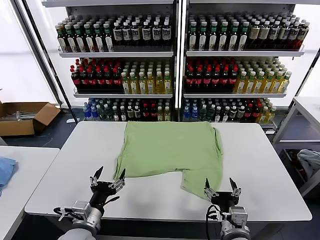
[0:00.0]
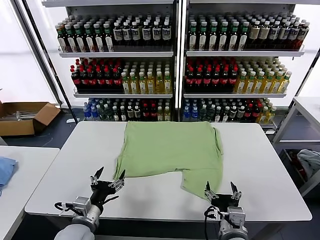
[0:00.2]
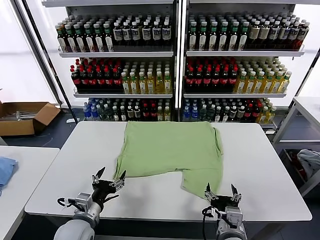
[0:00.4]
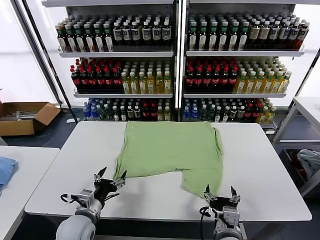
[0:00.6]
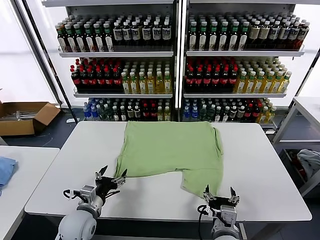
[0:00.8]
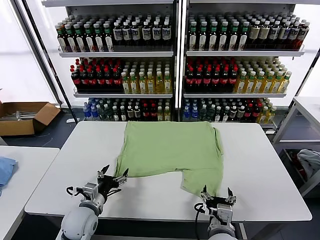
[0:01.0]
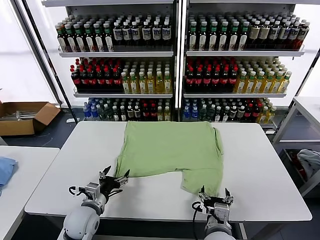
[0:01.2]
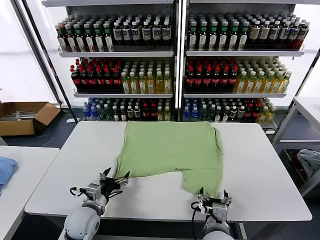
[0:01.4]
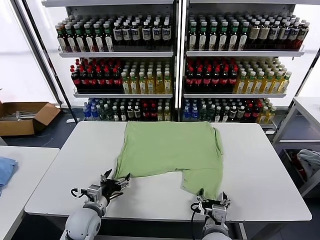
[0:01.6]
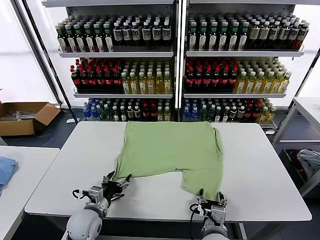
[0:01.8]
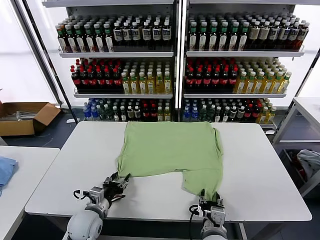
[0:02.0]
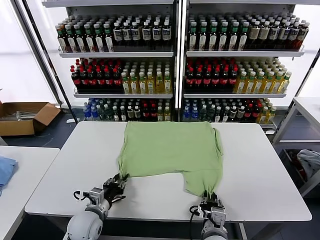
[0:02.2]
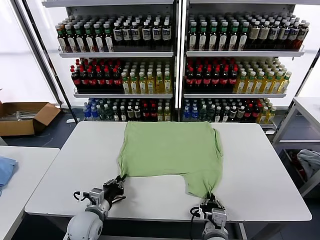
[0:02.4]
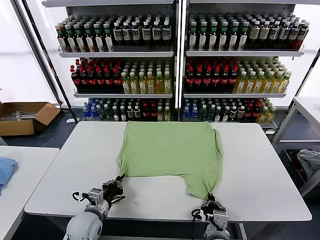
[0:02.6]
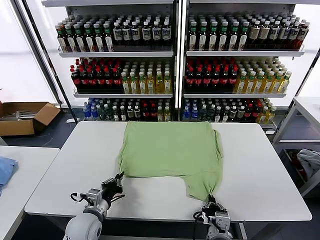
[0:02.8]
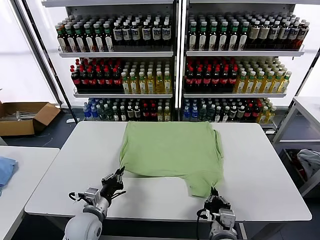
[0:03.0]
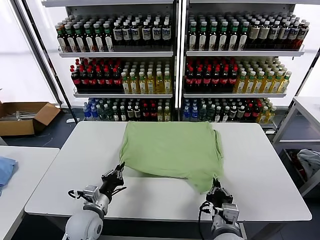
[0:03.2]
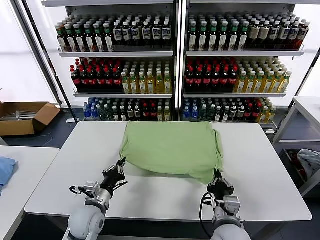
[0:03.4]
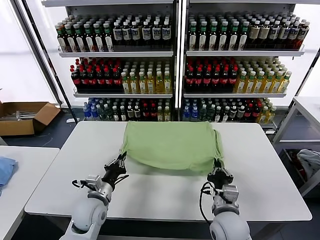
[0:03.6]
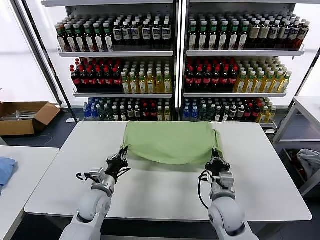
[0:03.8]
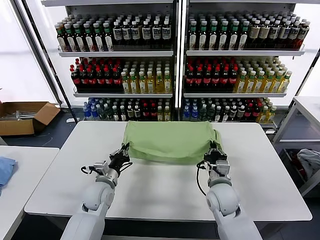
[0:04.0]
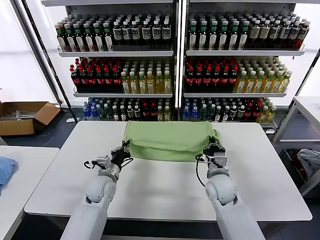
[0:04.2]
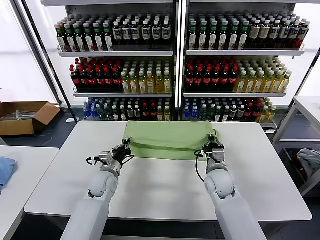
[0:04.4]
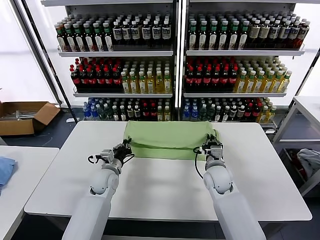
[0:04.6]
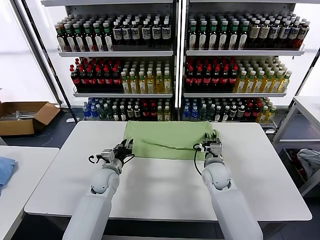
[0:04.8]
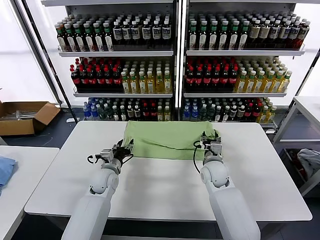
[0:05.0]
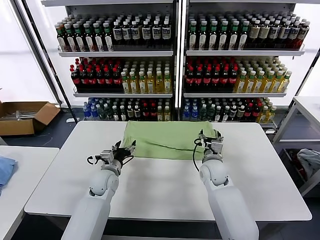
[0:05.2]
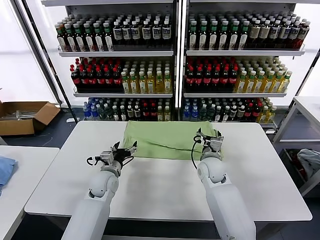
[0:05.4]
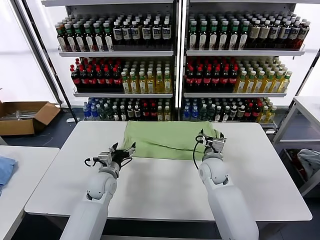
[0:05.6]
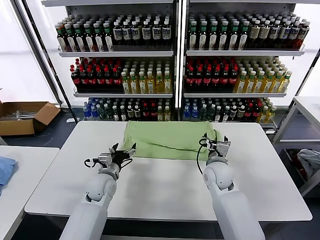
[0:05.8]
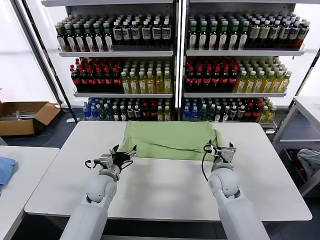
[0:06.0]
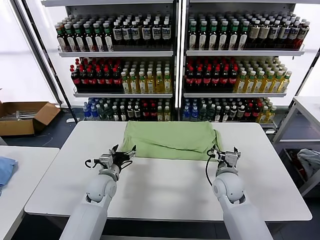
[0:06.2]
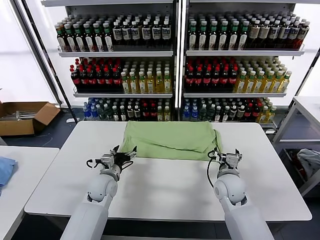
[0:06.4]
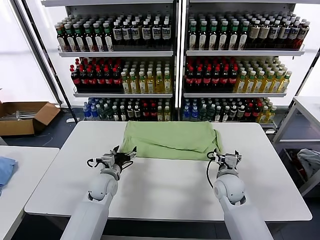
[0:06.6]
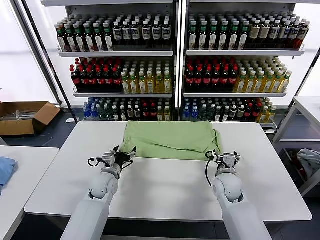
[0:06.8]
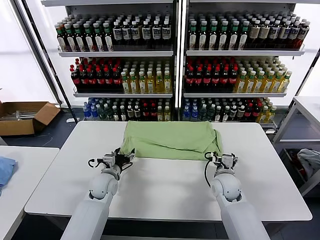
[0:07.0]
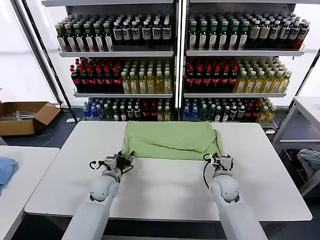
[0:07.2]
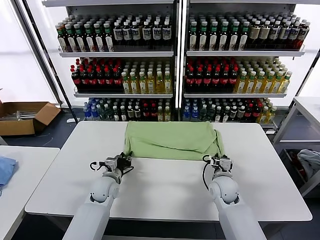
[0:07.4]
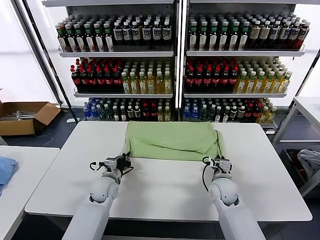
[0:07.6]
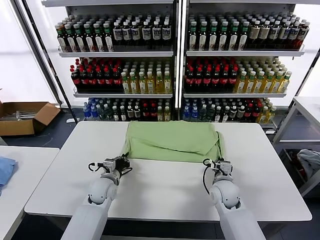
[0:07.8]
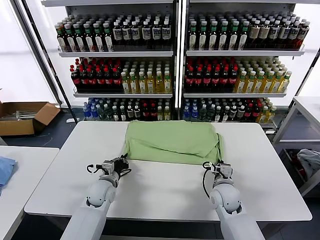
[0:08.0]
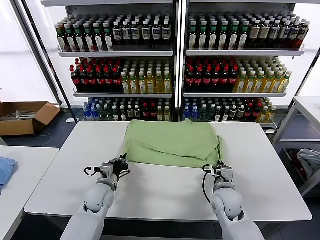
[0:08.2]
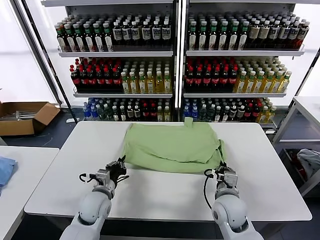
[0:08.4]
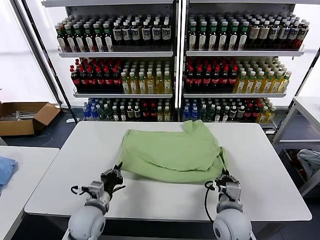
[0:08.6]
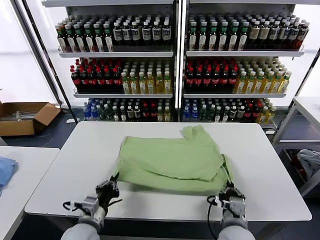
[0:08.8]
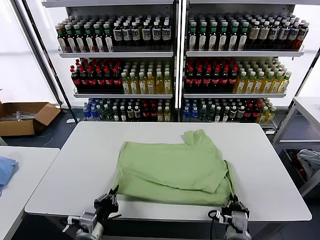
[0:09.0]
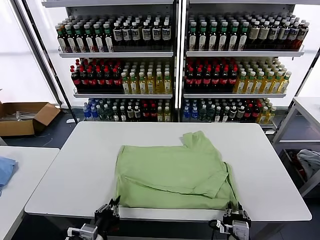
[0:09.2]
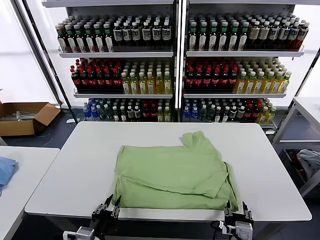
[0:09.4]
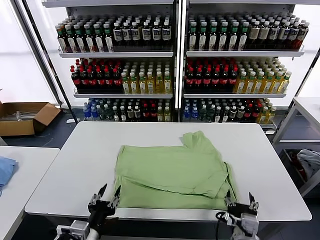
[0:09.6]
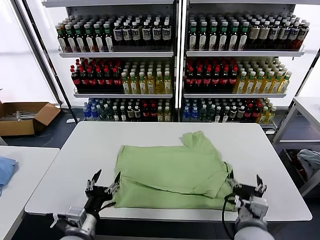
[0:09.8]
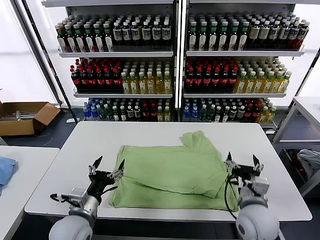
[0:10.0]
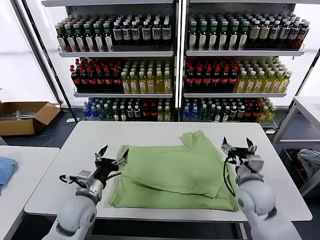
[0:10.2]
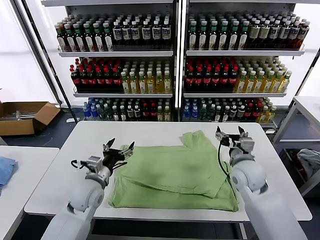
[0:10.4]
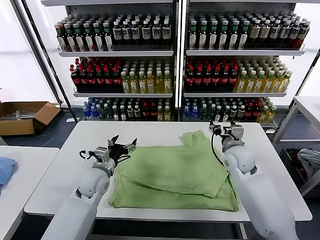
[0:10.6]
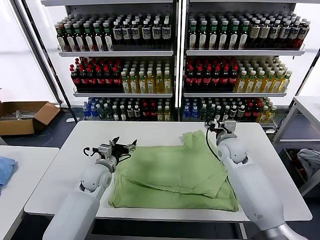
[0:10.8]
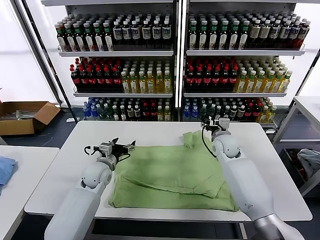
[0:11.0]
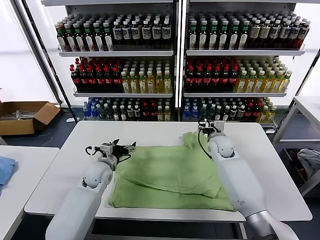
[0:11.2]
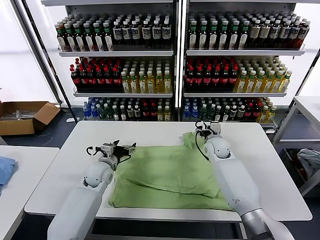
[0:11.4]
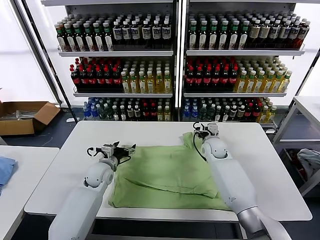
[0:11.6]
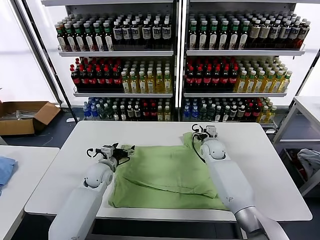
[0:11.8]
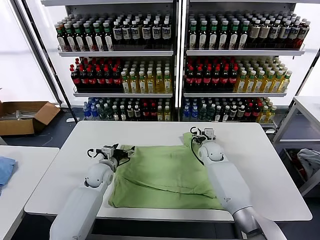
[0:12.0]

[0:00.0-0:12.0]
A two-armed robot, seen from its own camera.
Task of the whole recording: fold and organize the clothes.
Step, 0:00.0 to 0:02.6: use both grippers simultaneously to clamp the lower edge of the clothing fabric.
Step, 0:02.8 to 0:05.0: use both grippers to drag the lower edge of the fabric forward and fold it over the upper edge.
Step, 0:05.2 to 0:09.4: Drag the clothes downward with both gripper.
0:01.6 to 0:03.0: The right gripper closes its fingers; the left gripper closes up.
0:03.0 to 0:04.4: Both grippers travel together forward, about 20 cm.
0:04.4 to 0:06.0: The right gripper opens. The left gripper opens up.
0:06.0 to 0:07.6: The right gripper heads downward, covering some 5 cm, and closes up. The left gripper closes its fingers.
0:07.6 to 0:09.0: Both grippers travel together backward, roughly 20 cm.
0:09.0 to 0:10.4: The left gripper moves forward, approximately 15 cm, and opens; the right gripper goes about 25 cm forward, and opens up.
0:10.4 to 0:12.0: The left gripper moves forward and downward, some 10 cm; the right gripper heads forward, downward and to the left, covering approximately 20 cm.

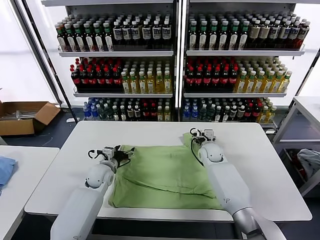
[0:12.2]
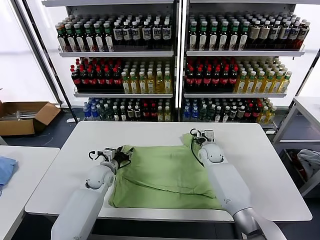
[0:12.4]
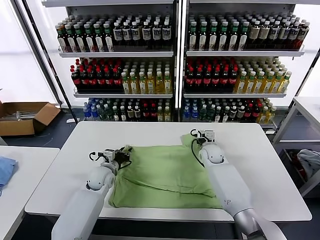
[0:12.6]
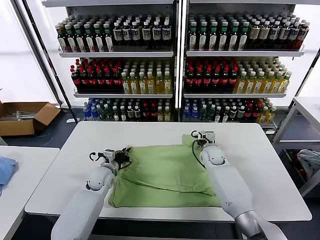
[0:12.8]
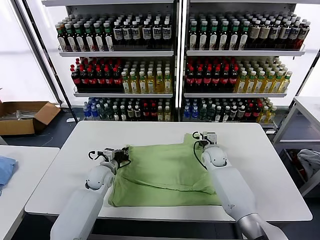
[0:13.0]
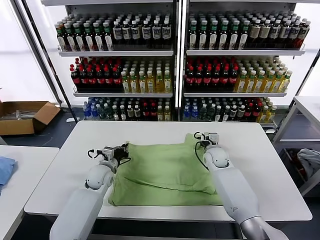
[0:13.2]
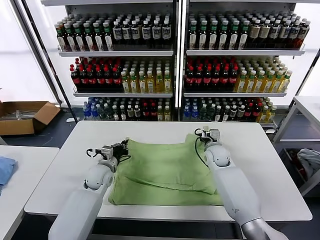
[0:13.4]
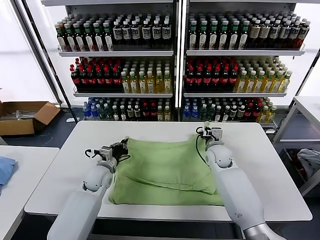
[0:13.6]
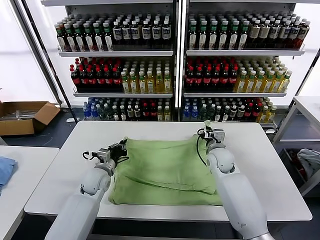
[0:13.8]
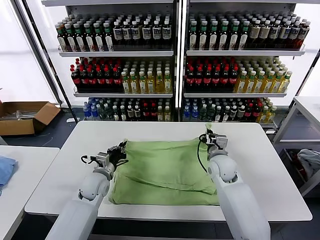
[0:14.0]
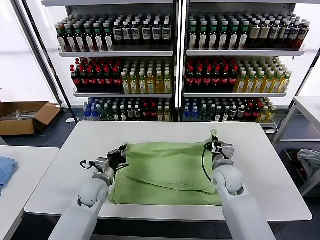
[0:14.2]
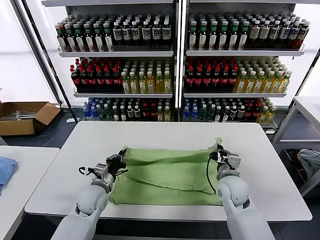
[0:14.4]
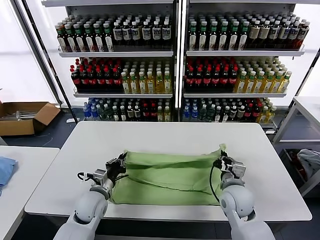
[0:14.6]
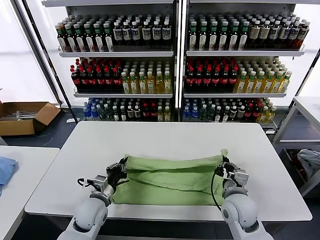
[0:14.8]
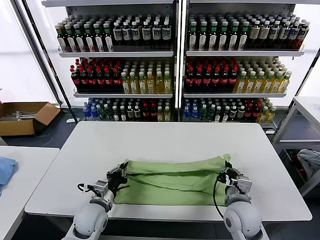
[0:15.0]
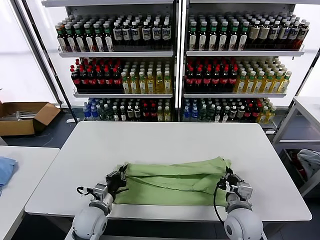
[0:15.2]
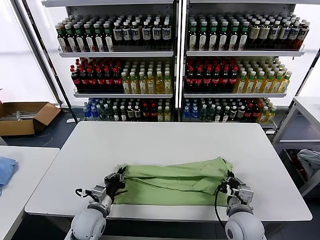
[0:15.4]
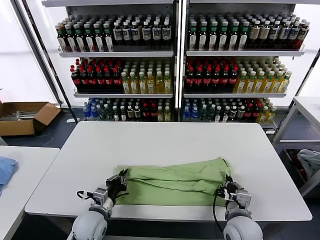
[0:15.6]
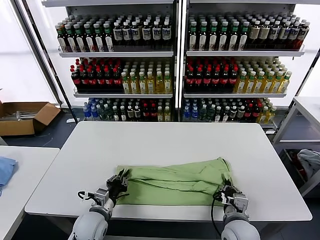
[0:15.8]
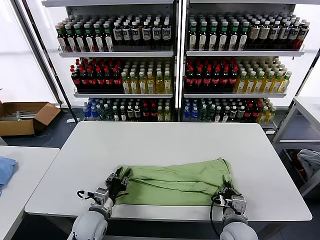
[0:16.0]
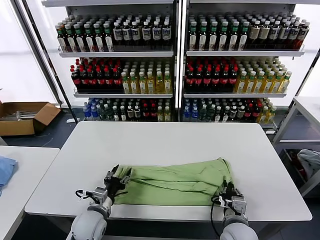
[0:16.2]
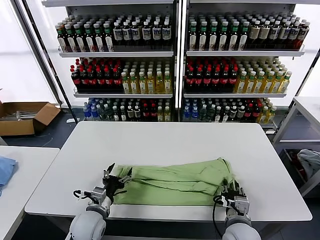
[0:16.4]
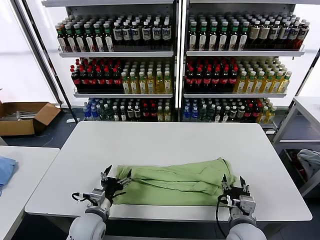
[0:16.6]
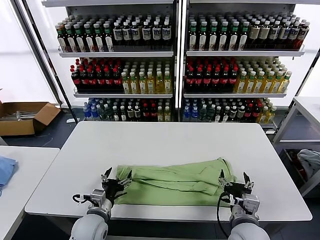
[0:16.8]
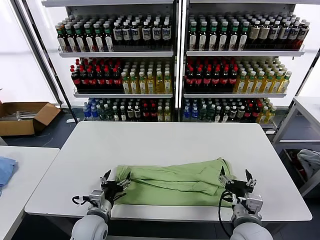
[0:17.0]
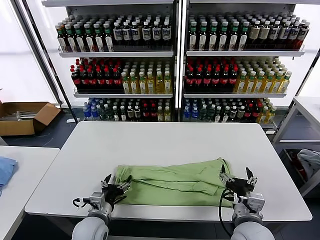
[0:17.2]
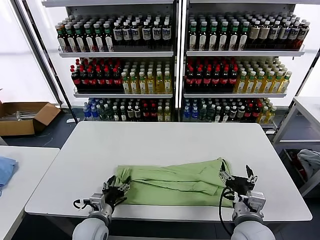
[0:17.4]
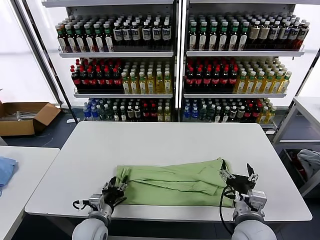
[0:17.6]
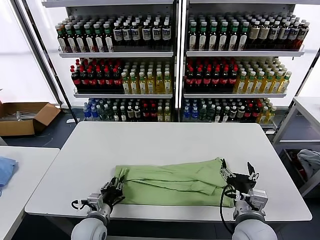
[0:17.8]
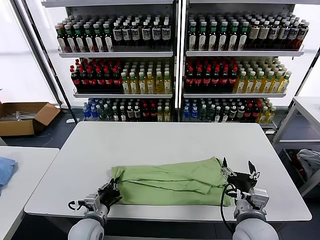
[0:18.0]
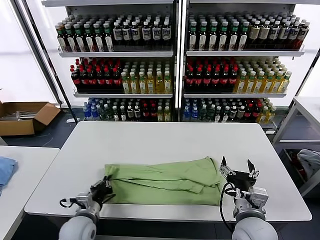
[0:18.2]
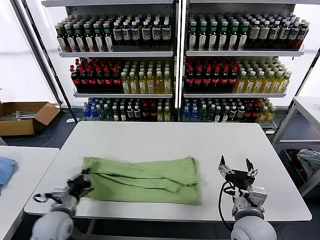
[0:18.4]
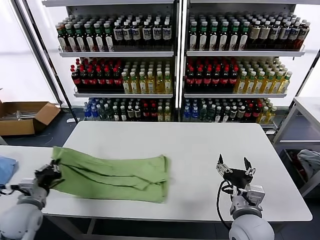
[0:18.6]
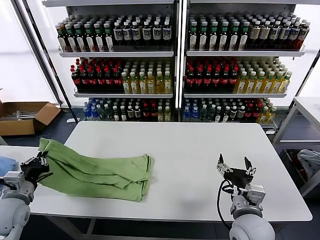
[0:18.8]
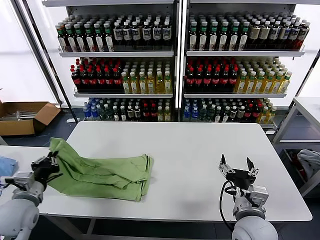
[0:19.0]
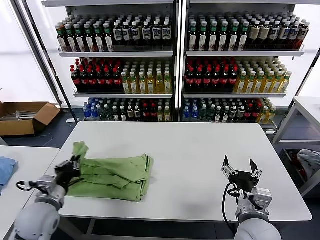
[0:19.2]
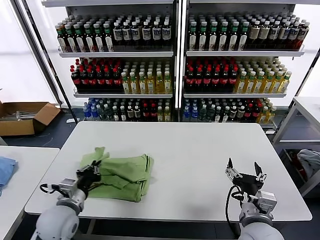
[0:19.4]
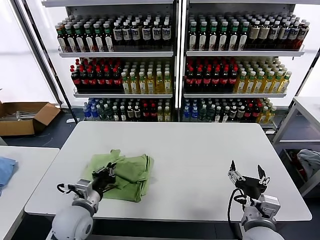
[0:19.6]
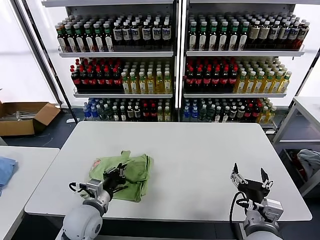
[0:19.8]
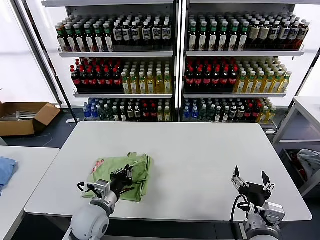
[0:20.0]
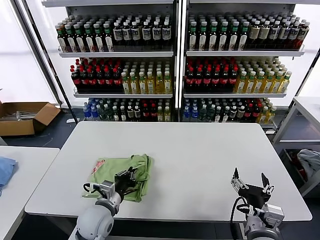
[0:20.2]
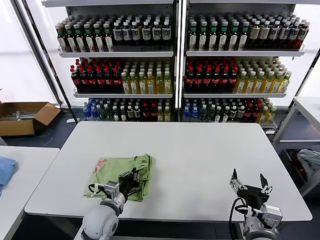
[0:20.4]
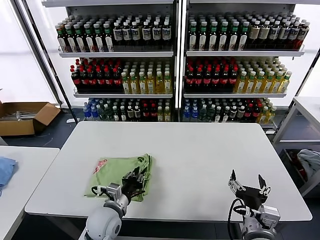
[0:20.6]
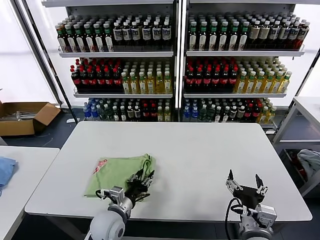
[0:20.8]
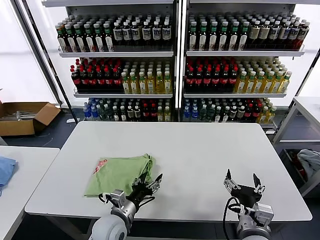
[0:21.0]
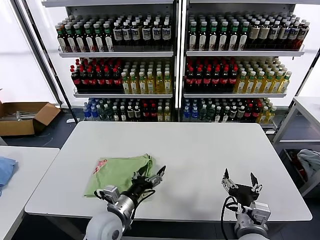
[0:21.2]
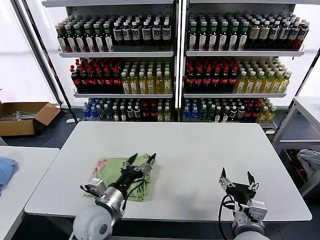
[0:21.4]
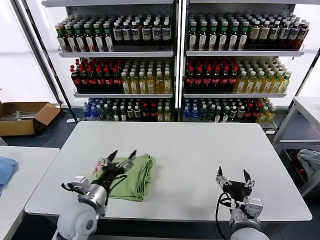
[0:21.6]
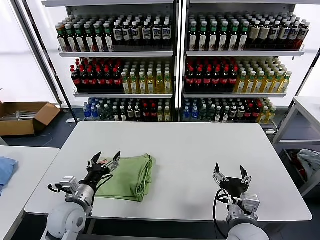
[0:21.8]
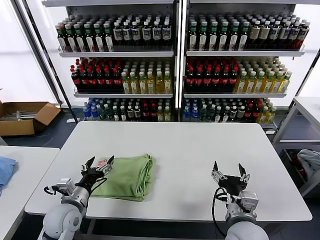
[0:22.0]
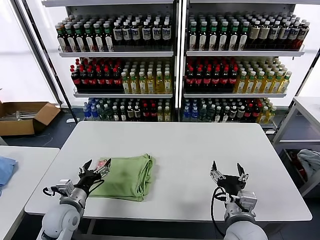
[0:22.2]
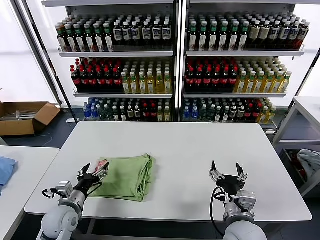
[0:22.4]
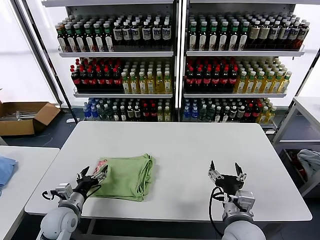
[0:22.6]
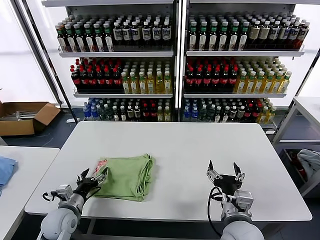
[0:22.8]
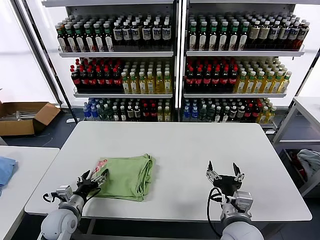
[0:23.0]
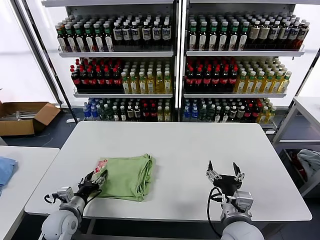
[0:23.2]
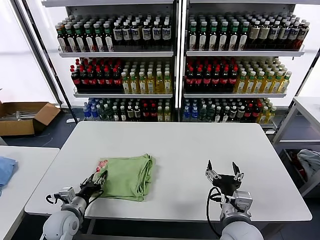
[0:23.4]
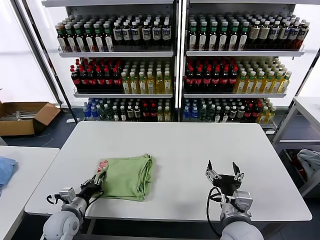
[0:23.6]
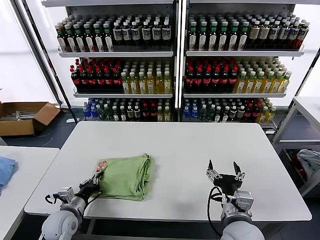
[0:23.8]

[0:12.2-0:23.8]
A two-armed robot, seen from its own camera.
Task of the whole recording: fold and organize the clothes.
Step, 0:13.2 to 0:16.6: use both grippers to drag the upper edge of the fabric backward and fold it over the lower edge.
Step, 0:16.8 to 0:17.8: use the left gripper to clamp the left edge of the fabric.
Step, 0:18.0 to 0:21.0: use the left gripper to drag the left edge of the fabric to the left and folds it over the right edge.
0:12.2 to 0:13.6: The right gripper shifts approximately 5 cm backward, and closes up. The left gripper closes up.
0:13.6 to 0:15.0: The right gripper goes some 20 cm backward, while the left gripper travels backward by roughly 15 cm.
0:15.0 to 0:16.6: The right gripper heads backward, covering about 5 cm, and opens up; the left gripper opens.
0:16.6 to 0:18.0: The right gripper is displaced upward by about 5 cm. Meanwhile the left gripper closes up.
0:18.0 to 0:19.4: The left gripper shifts about 10 cm upward, and reaches some 20 cm to the left, then returns.
0:19.4 to 0:21.0: The left gripper heads to the right and downward, covering approximately 15 cm, and opens its fingers.
0:21.0 to 0:22.4: The left gripper moves to the left, approximately 15 cm.
0:22.4 to 0:23.8: The left gripper closes up.
